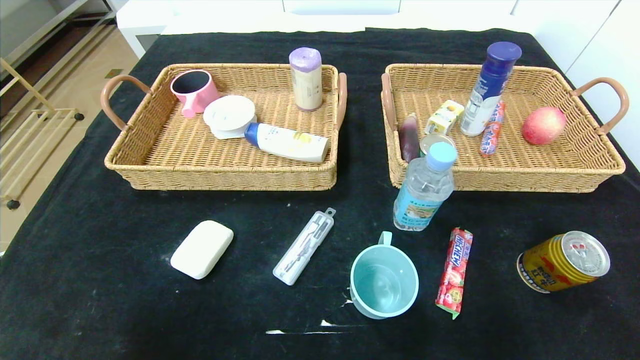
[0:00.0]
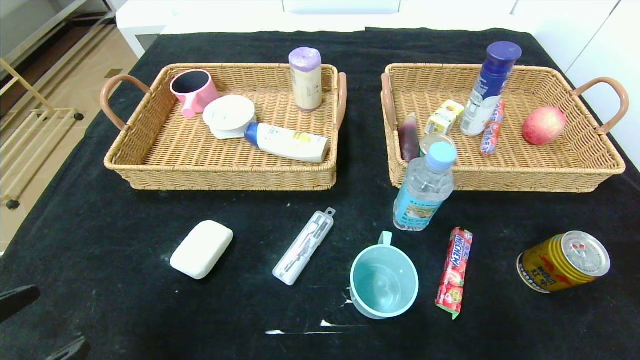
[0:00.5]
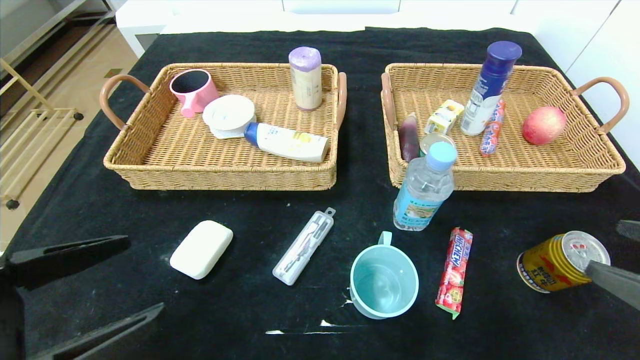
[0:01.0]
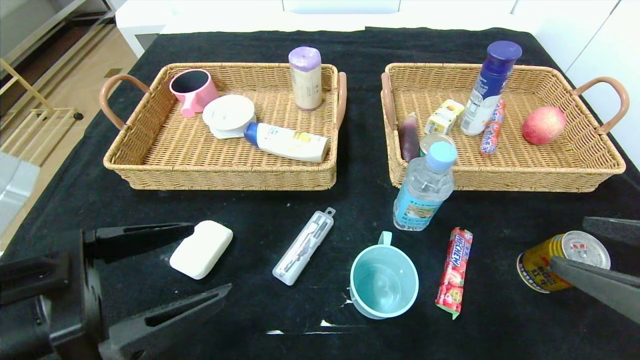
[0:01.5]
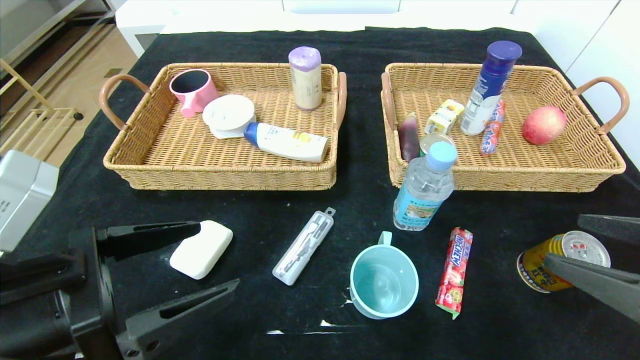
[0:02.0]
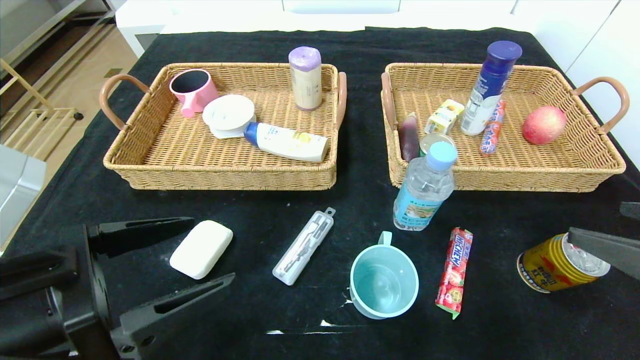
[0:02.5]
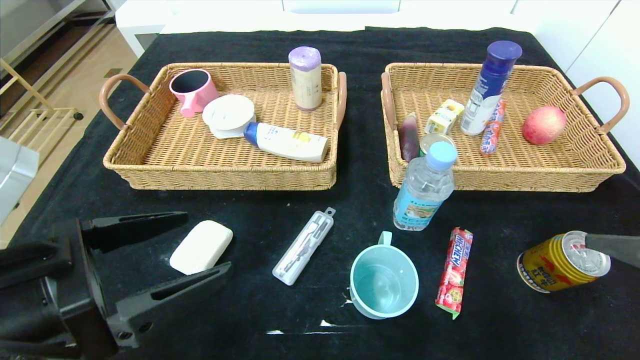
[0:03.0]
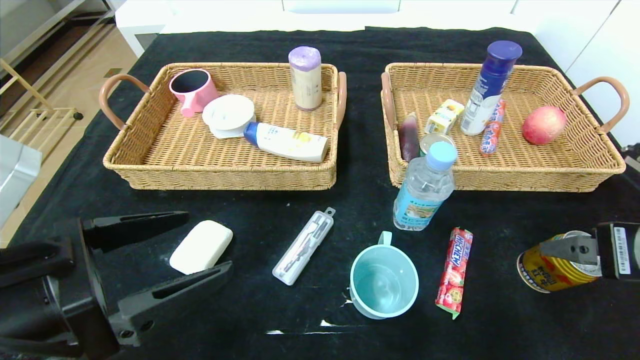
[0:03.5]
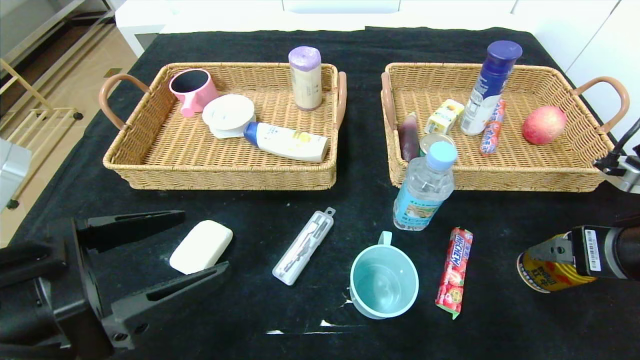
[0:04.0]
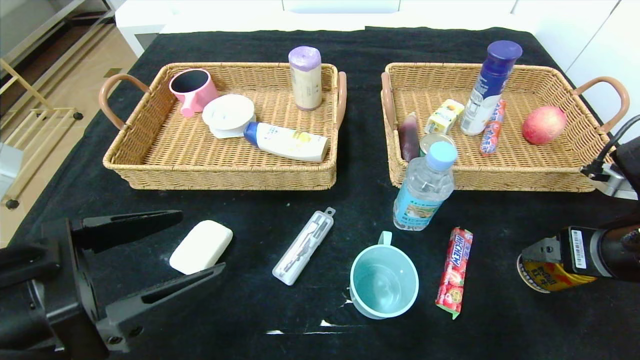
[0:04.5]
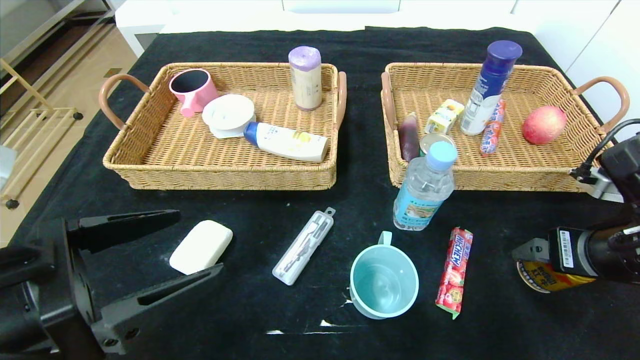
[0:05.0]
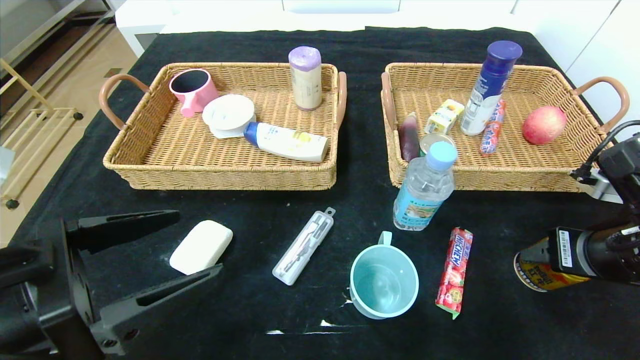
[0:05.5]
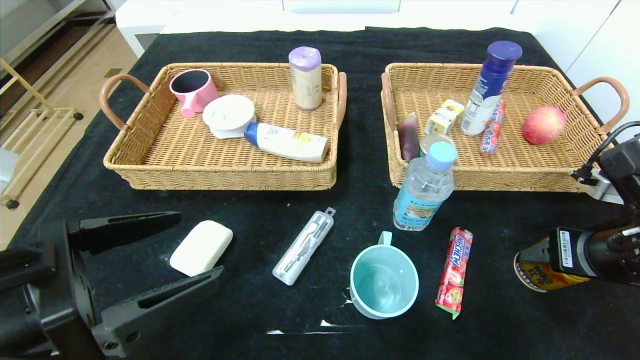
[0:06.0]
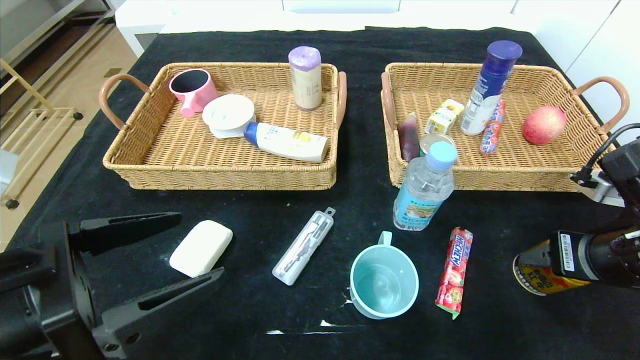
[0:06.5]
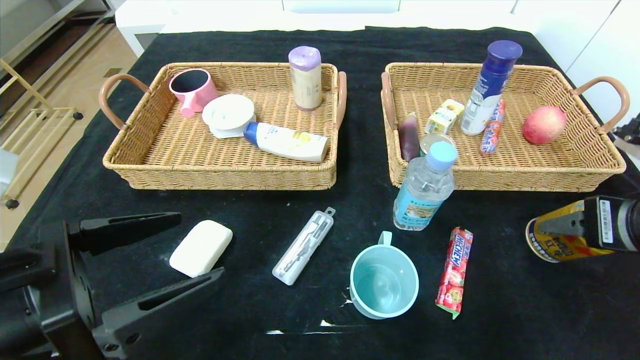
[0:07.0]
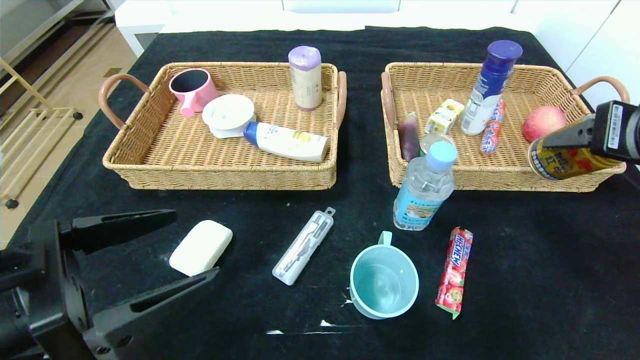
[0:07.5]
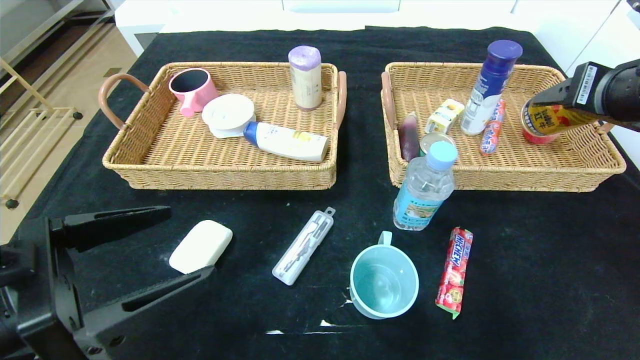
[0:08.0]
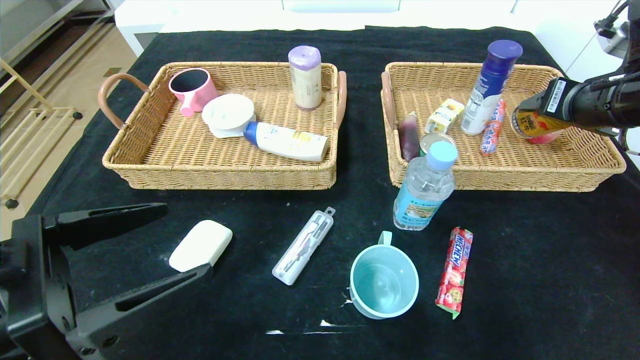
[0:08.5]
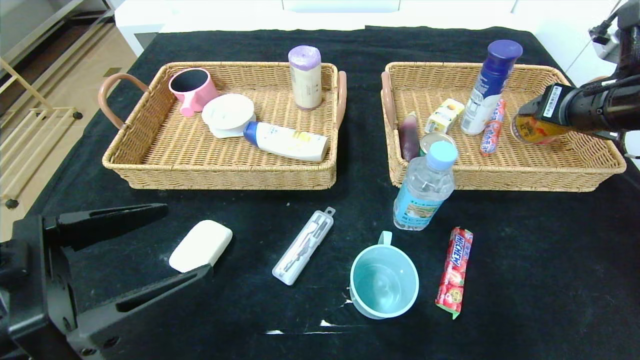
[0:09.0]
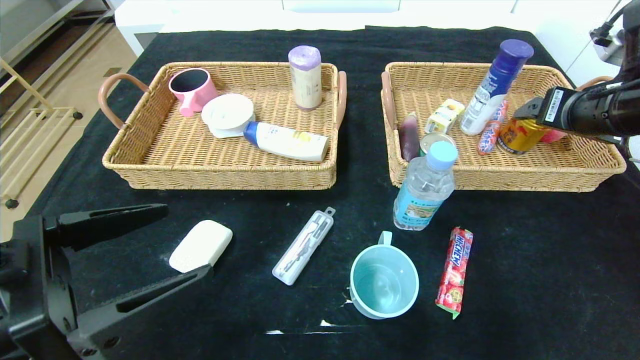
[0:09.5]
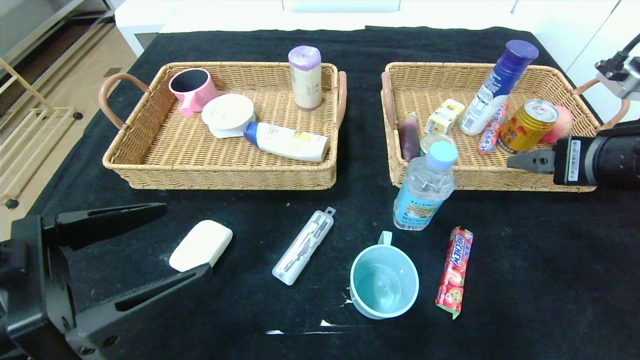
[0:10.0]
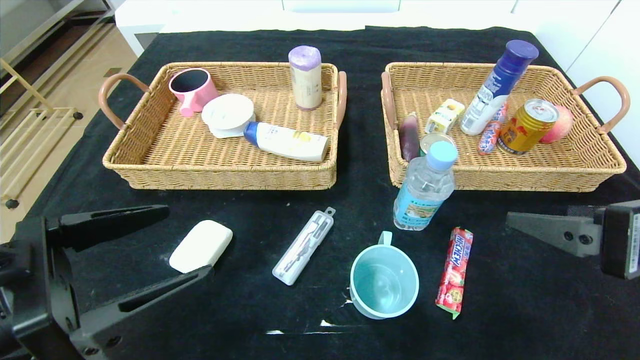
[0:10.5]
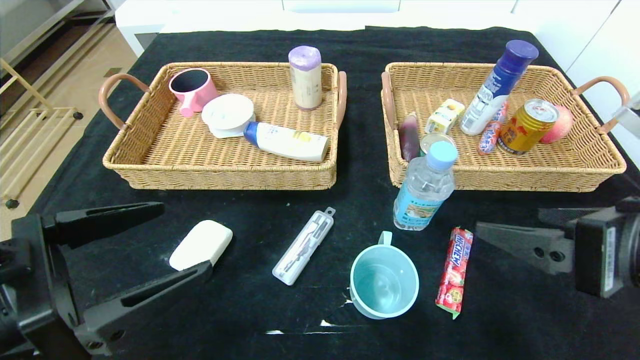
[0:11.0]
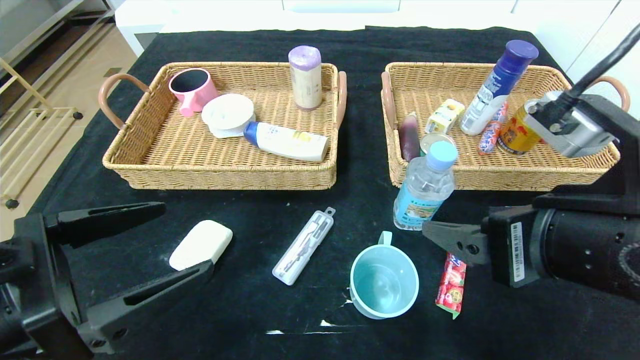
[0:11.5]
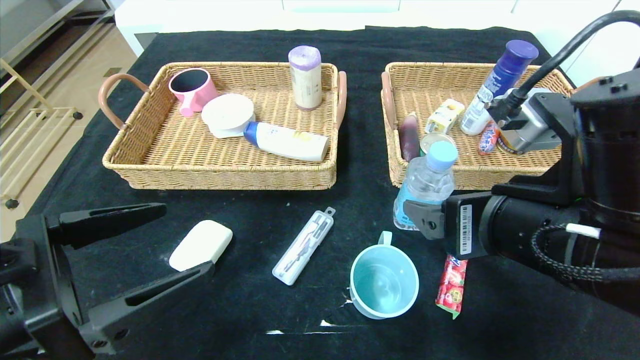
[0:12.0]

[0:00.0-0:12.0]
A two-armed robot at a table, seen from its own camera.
Step, 0:00.0 to 0:09.5: Grasp the red bull and put it in the right basket.
0:00.0 to 0:02.0: The left gripper moves forward, upward and to the right, approximately 20 cm; the right gripper is displaced forward, upward and to the left by roughly 20 cm.
0:02.0 to 0:04.0: The right gripper is displaced forward by approximately 10 cm.
0:04.0 to 0:06.0: The grippers make only small movements.
0:06.0 to 0:08.0: The right gripper is displaced upward and forward by roughly 15 cm.
0:08.0 to 0:10.0: The right gripper moves downward, roughly 5 cm.
0:10.0 to 0:12.0: The right gripper travels to the left and backward by some 15 cm.

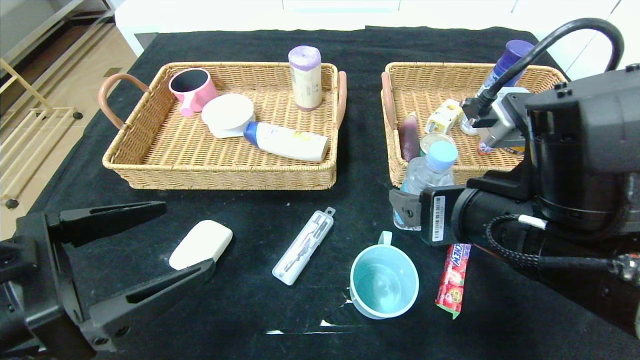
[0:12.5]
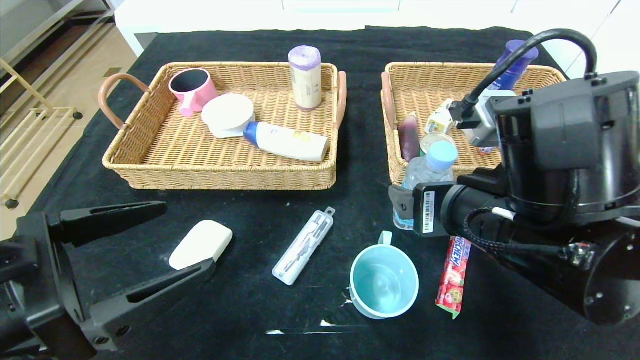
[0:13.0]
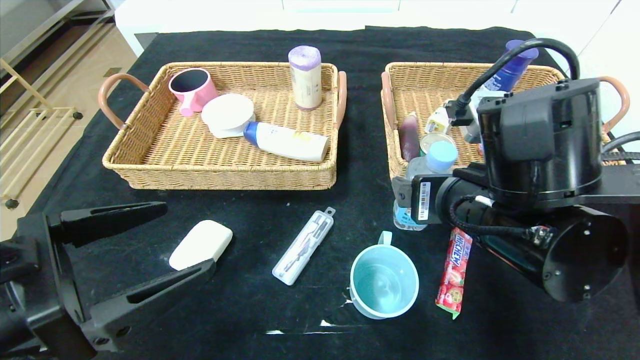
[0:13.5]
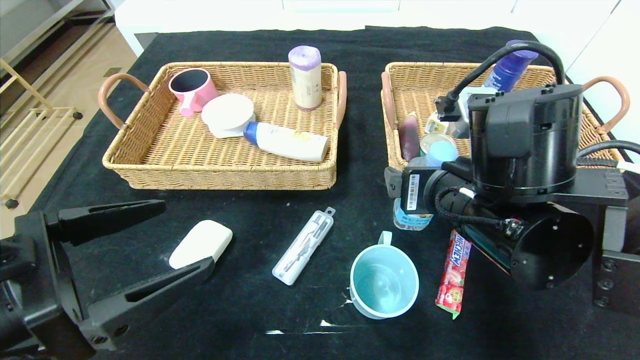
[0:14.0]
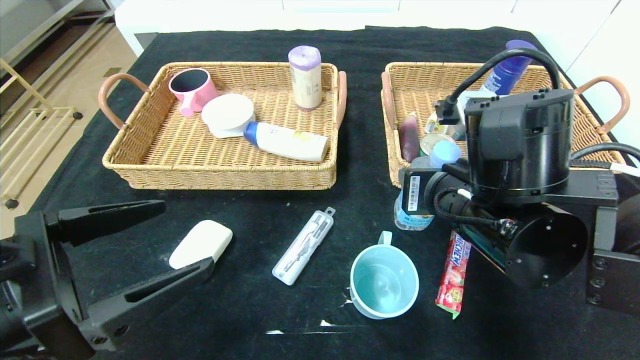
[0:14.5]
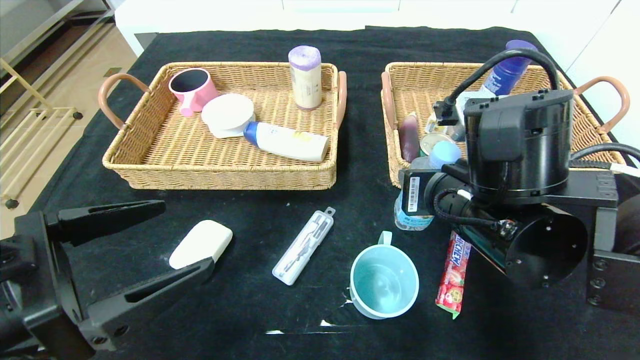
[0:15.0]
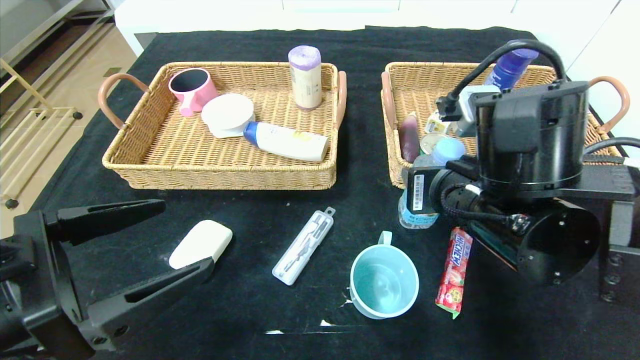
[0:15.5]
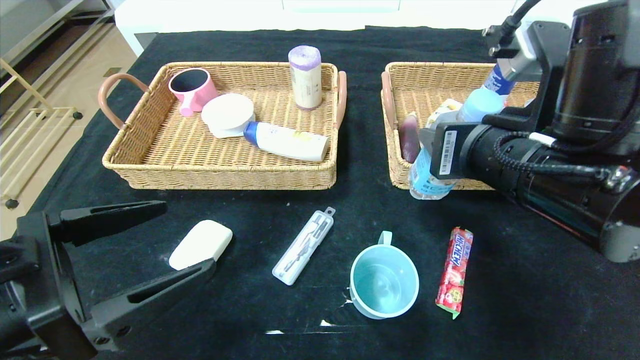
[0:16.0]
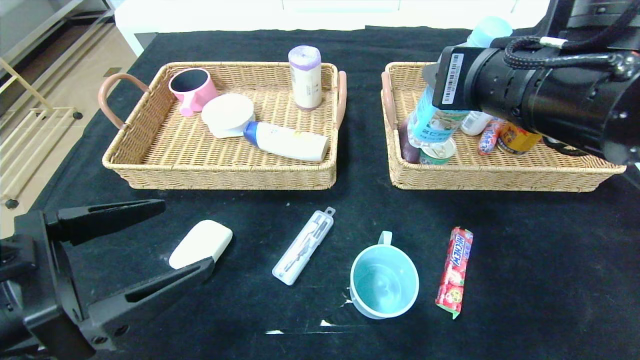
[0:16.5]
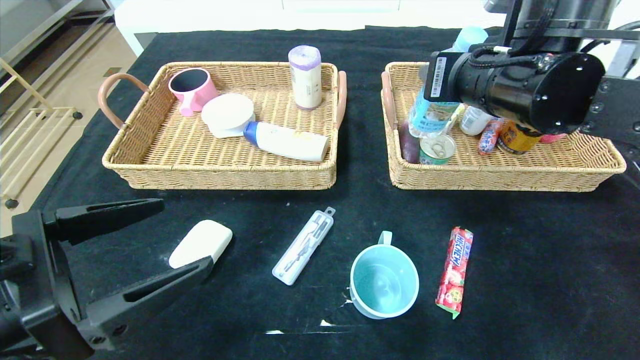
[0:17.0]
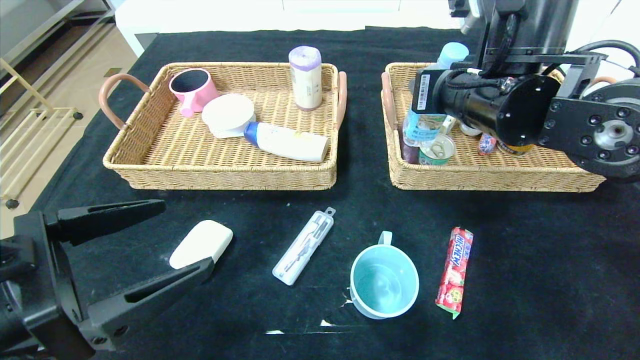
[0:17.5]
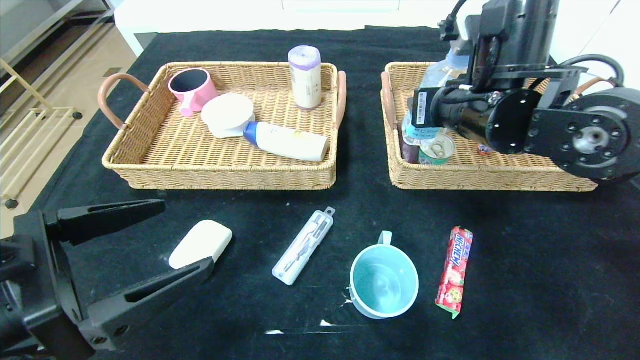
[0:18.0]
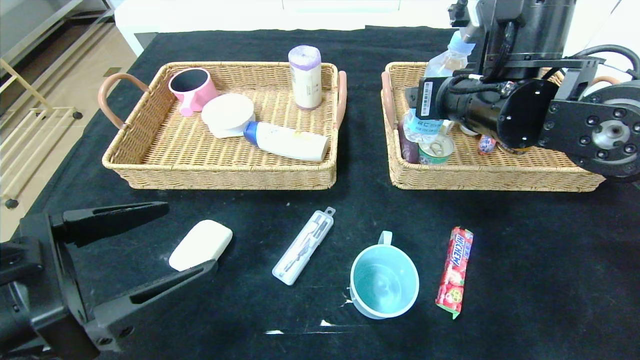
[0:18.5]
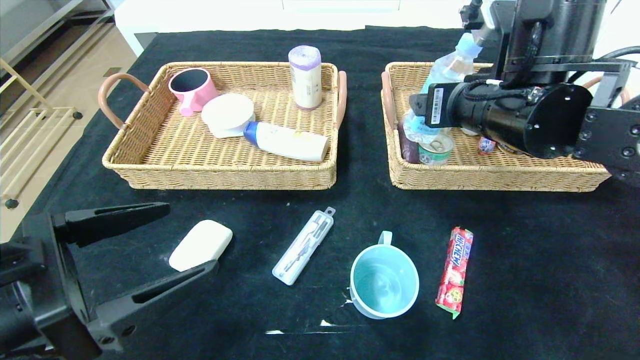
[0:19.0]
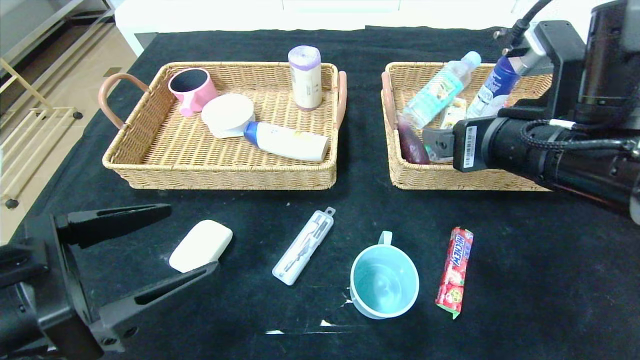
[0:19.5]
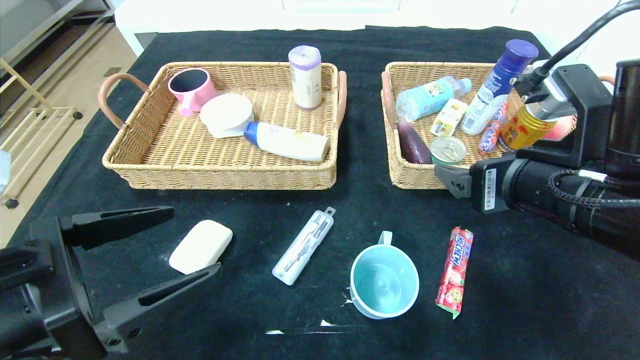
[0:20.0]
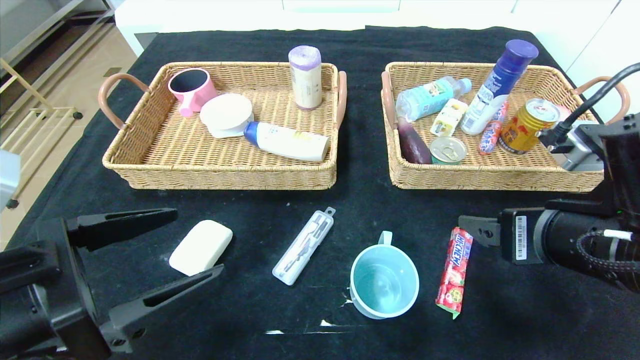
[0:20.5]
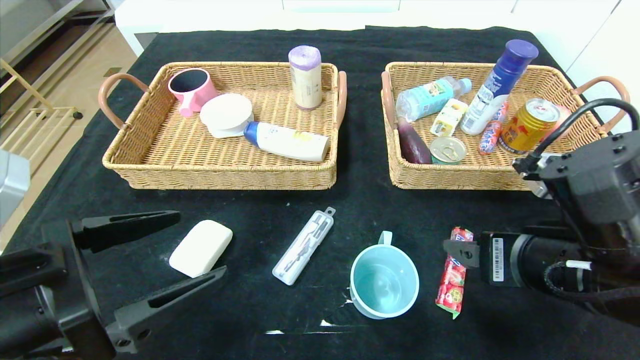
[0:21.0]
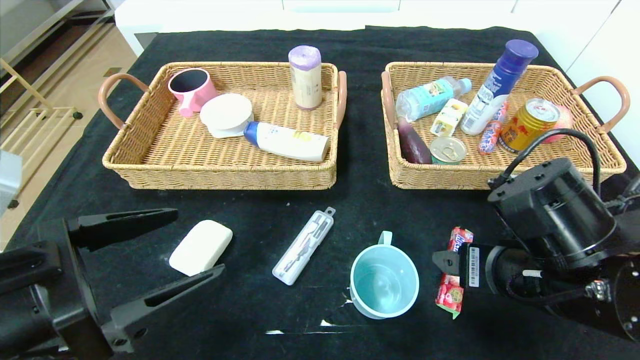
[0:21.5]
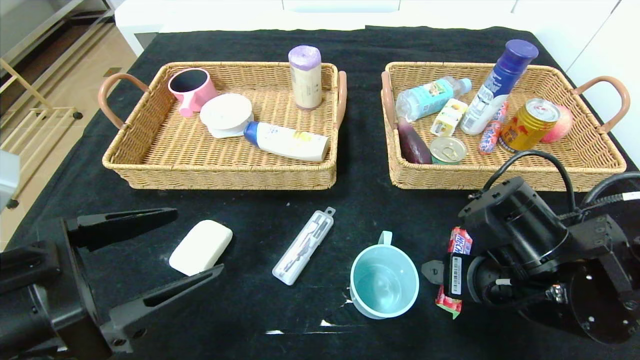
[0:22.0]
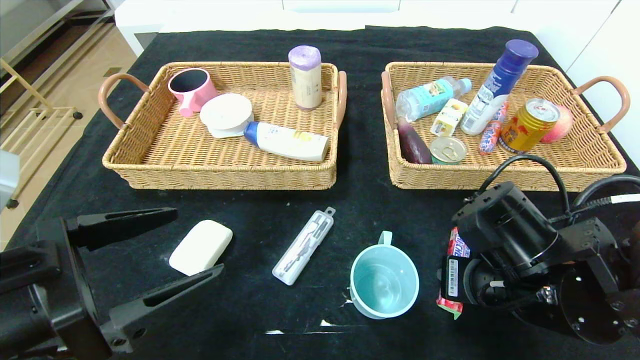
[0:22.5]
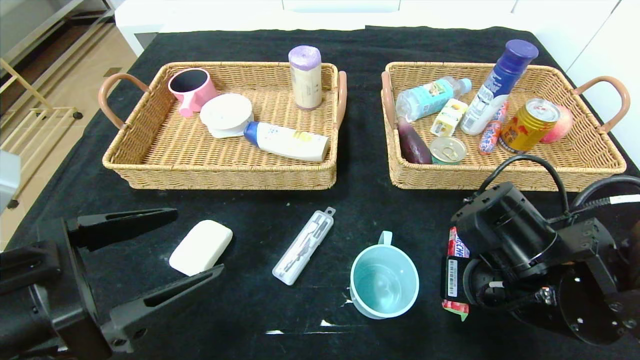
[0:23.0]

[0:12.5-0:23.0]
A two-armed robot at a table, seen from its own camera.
Step, 0:12.5 to 0:19.5: Grasp the soda water and put it in the right basket.
0:12.5 to 0:14.5: The right gripper goes roughly 5 cm forward, and closes its fingers.
0:14.5 to 0:16.5: The right gripper heads upward, covering about 10 cm.
0:16.5 to 0:19.0: The right gripper travels forward by approximately 5 cm, and opens up.
0:19.0 to 0:21.0: The right gripper moves backward and downward, approximately 15 cm.
0:21.0 to 0:23.0: The right gripper shifts by roughly 5 cm, and closes up.
